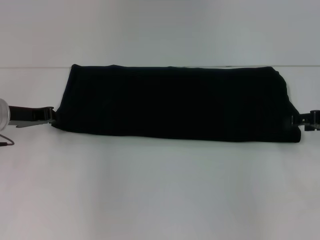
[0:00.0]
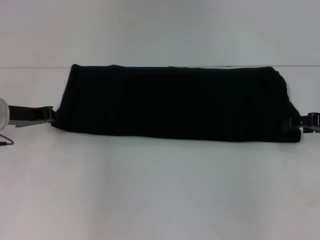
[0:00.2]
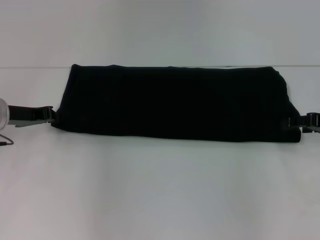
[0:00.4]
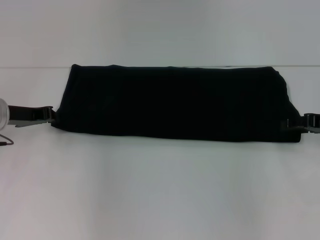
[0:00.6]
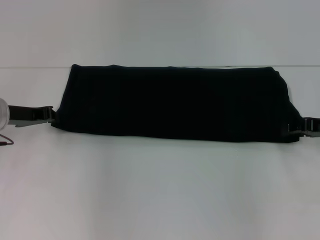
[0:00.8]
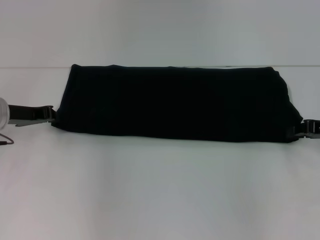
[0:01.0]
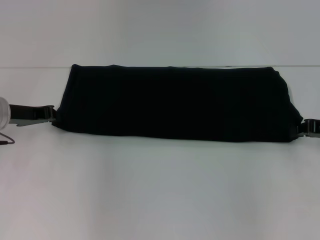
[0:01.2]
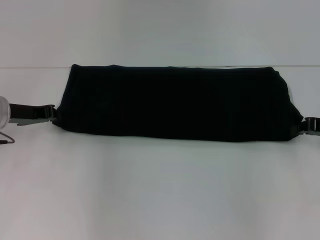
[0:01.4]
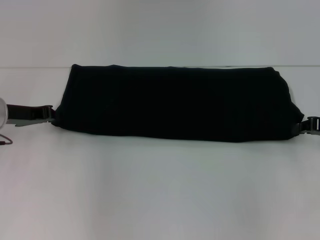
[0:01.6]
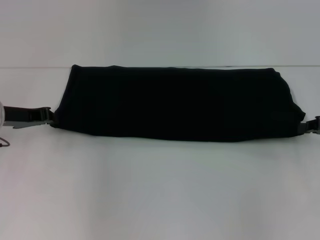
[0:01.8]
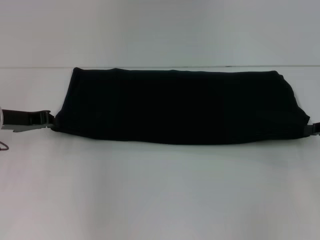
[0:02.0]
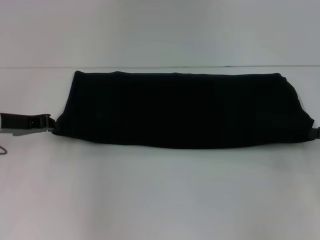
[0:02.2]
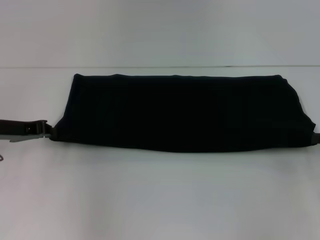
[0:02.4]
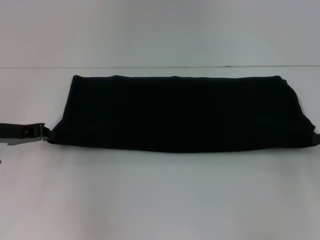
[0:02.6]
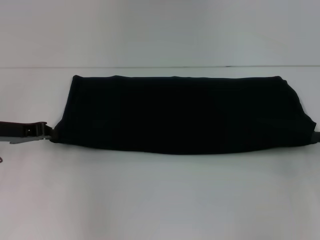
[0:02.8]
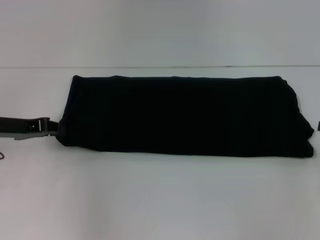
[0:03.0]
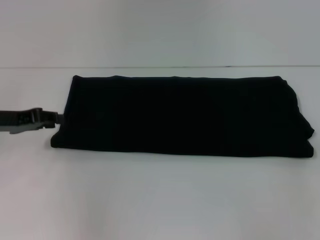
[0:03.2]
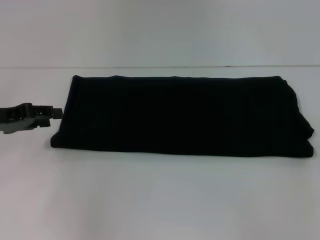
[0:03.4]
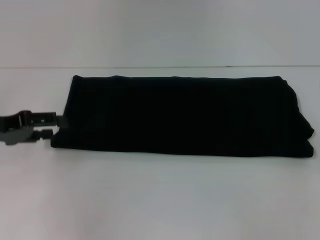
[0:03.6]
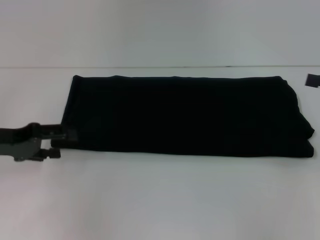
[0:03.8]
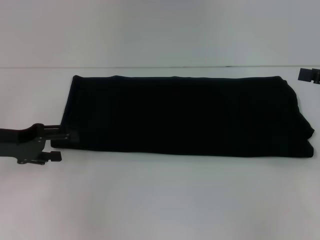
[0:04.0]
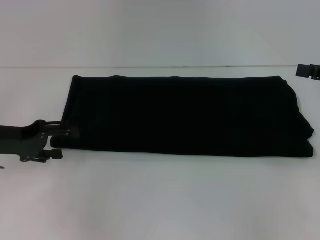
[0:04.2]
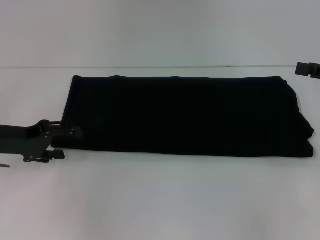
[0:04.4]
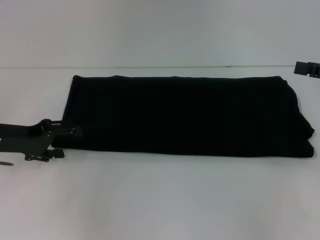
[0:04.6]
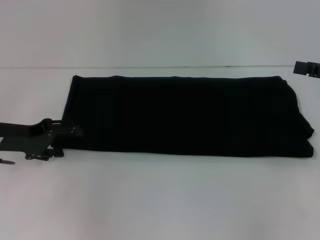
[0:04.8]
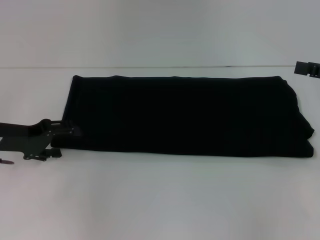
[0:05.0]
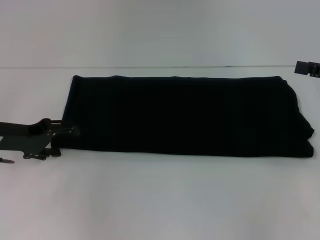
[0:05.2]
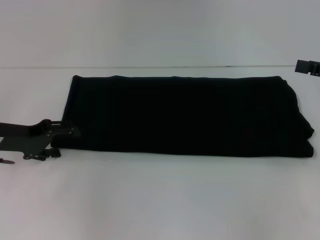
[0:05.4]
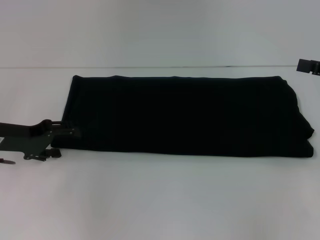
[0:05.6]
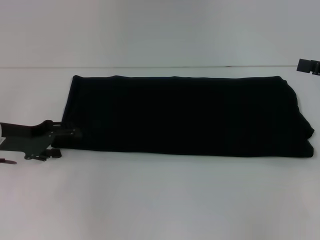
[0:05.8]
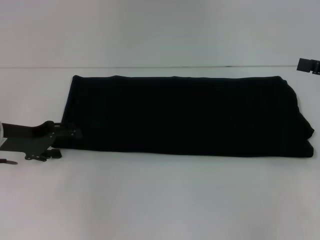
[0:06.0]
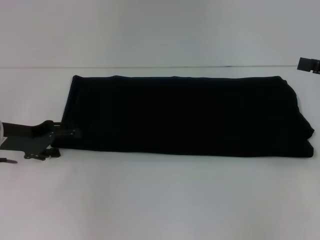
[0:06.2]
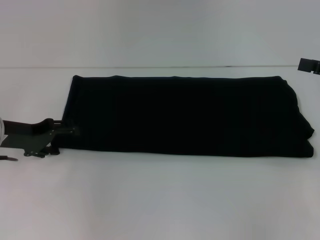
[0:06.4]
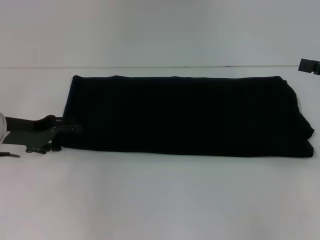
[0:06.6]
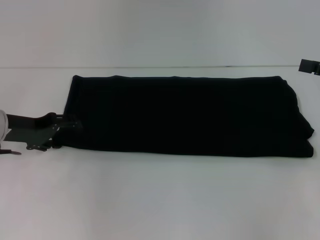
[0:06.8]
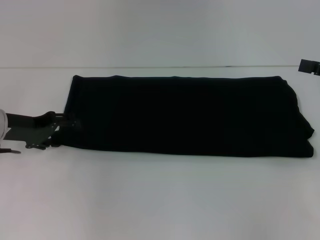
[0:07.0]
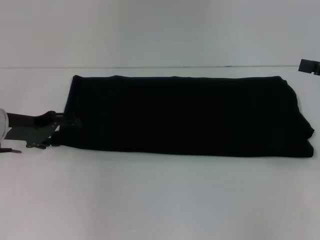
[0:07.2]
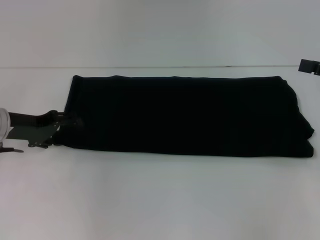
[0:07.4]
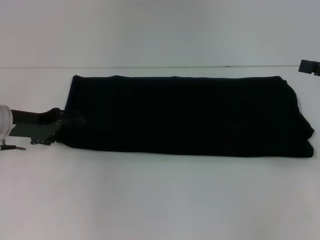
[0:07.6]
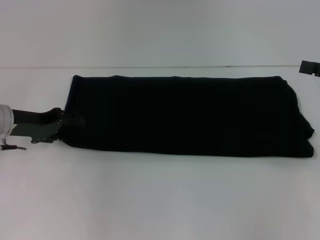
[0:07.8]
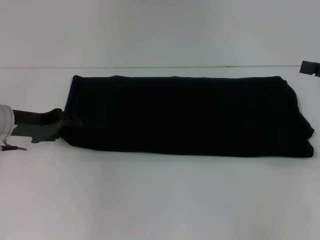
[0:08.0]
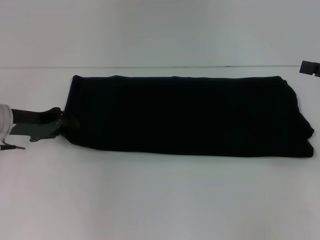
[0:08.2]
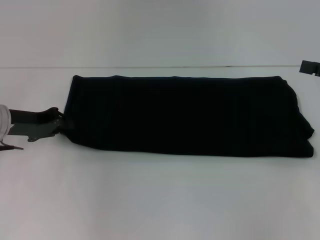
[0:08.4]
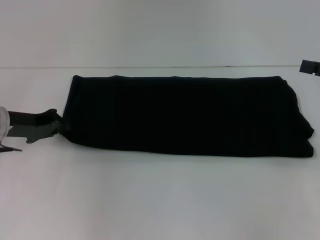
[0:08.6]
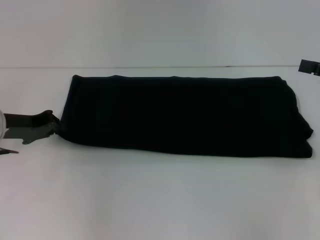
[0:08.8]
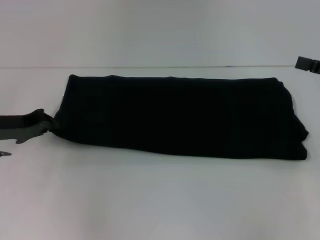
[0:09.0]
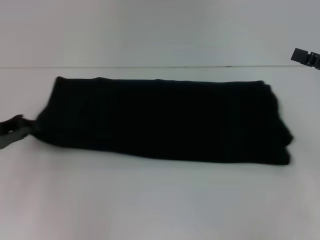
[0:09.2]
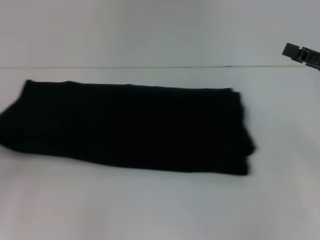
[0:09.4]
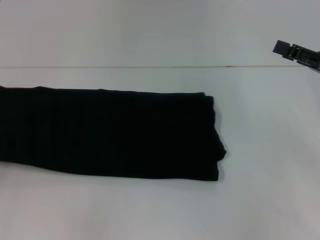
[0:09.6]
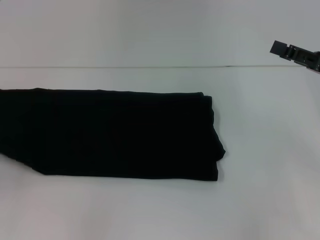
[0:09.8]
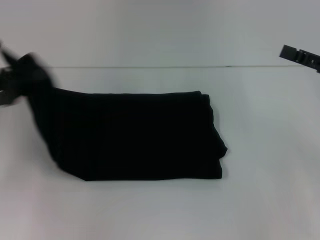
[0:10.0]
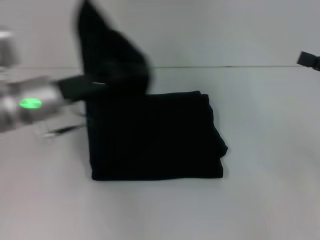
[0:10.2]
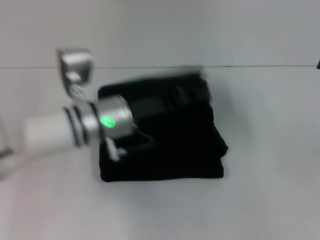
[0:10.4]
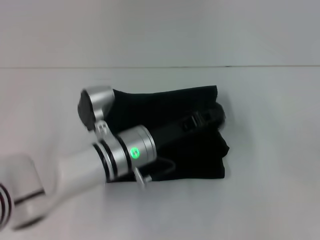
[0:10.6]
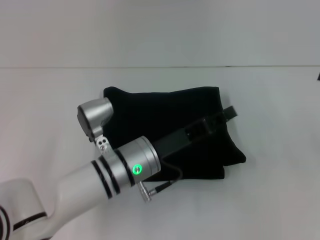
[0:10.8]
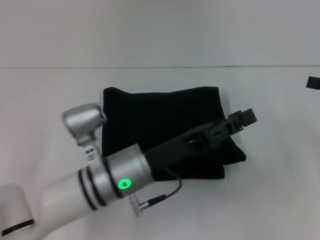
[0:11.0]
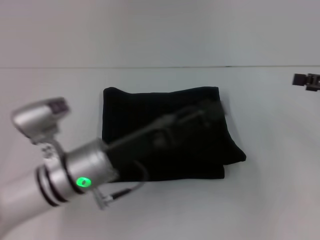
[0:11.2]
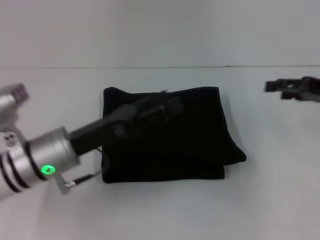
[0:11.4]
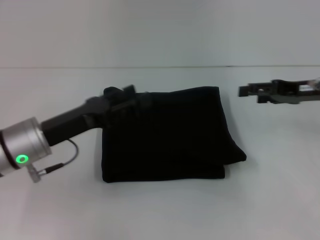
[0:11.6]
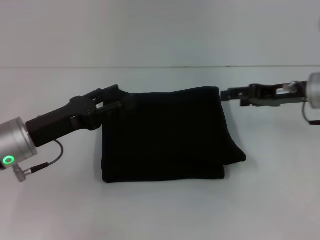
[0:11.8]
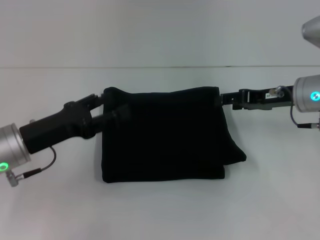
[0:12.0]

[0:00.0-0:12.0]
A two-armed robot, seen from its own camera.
Step, 0:00.0 to 0:11.0: Fold the clothes with your left hand.
0:00.0 to 0:01.6: The right gripper closes.
0:01.6 to 0:03.0: The right gripper shifts by some 5 cm.
0:03.0 to 0:04.4: The left gripper opens.
0:04.4 to 0:07.6: The grippers move only a little.
0:07.6 to 0:09.0: The left gripper closes up.
0:09.0 to 0:10.4: The left gripper goes about 20 cm to the right.
0:10.4 to 0:12.0: The left gripper shifts roughly 15 cm to the left and backward, and opens up. The right gripper shifts approximately 15 cm to the left and forward.

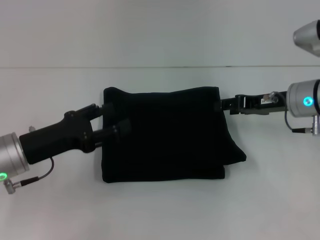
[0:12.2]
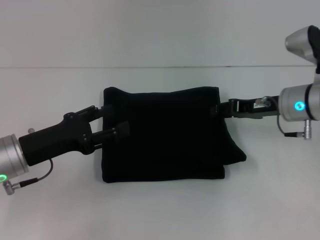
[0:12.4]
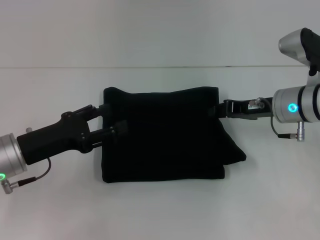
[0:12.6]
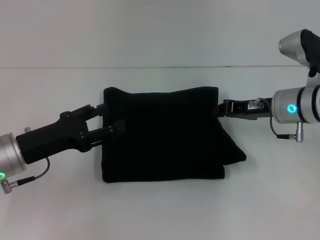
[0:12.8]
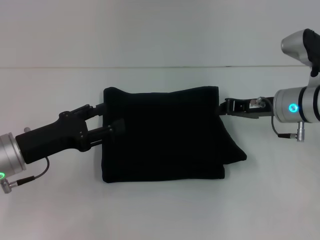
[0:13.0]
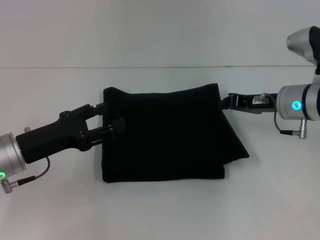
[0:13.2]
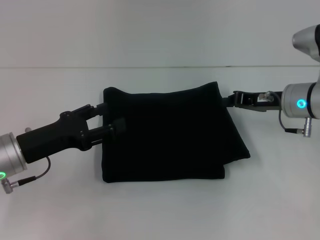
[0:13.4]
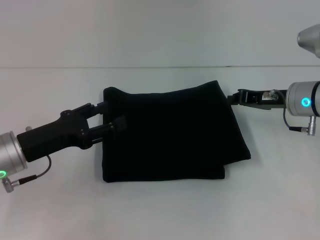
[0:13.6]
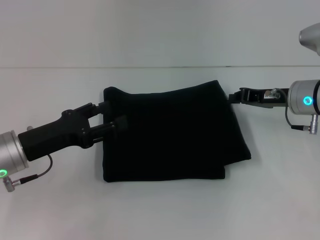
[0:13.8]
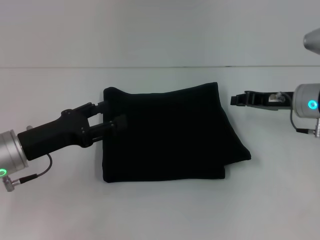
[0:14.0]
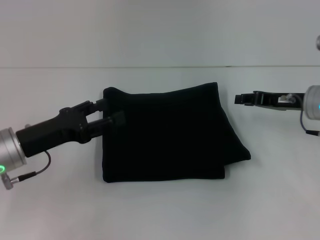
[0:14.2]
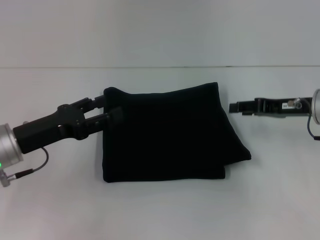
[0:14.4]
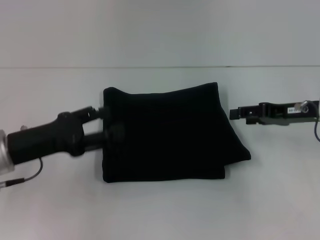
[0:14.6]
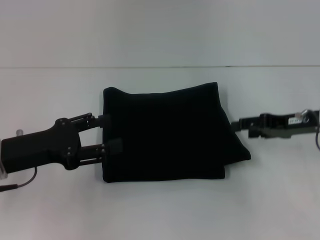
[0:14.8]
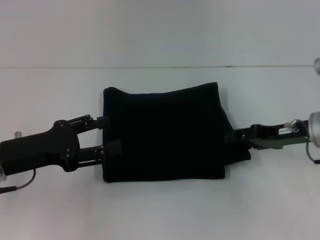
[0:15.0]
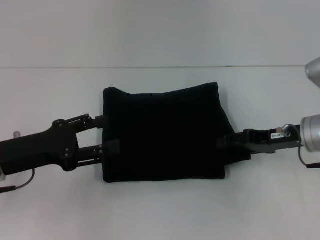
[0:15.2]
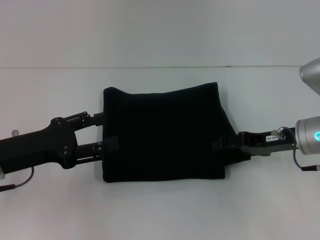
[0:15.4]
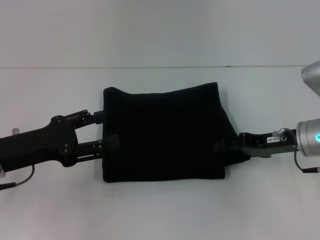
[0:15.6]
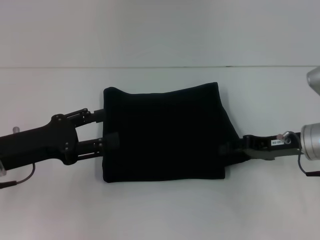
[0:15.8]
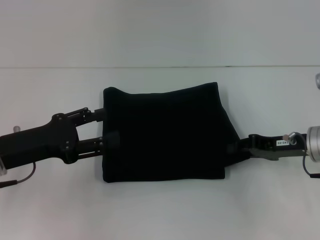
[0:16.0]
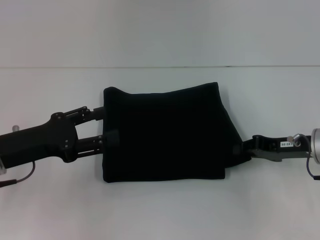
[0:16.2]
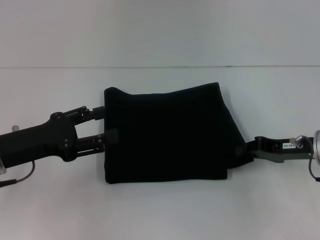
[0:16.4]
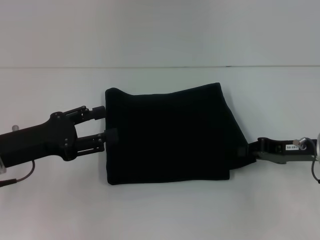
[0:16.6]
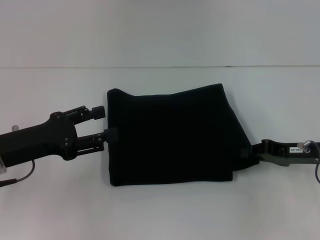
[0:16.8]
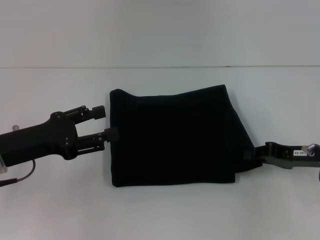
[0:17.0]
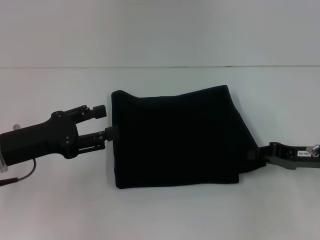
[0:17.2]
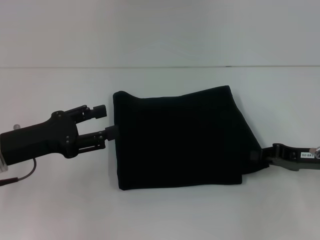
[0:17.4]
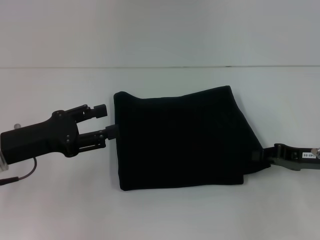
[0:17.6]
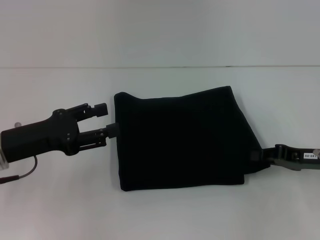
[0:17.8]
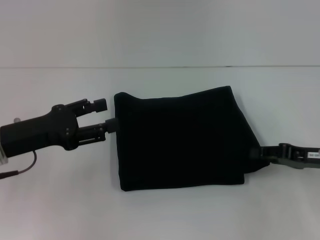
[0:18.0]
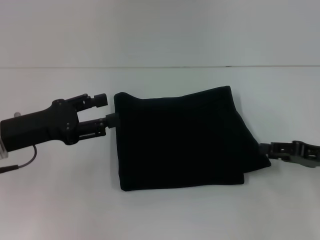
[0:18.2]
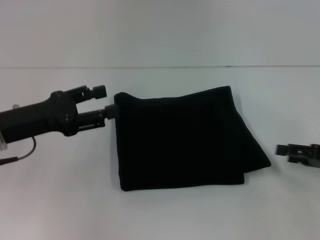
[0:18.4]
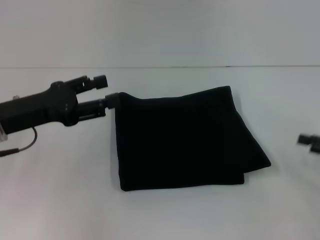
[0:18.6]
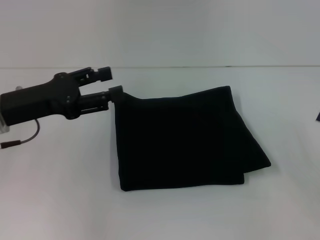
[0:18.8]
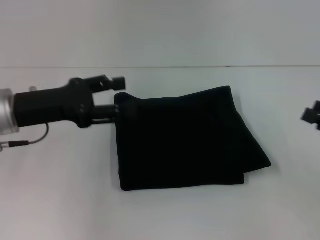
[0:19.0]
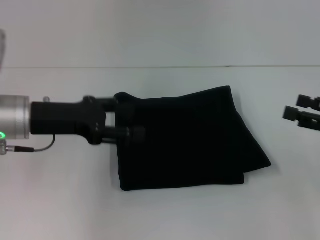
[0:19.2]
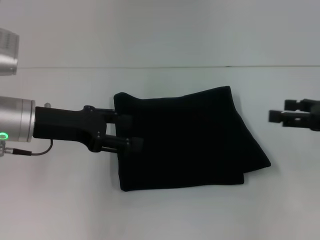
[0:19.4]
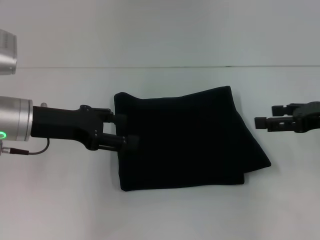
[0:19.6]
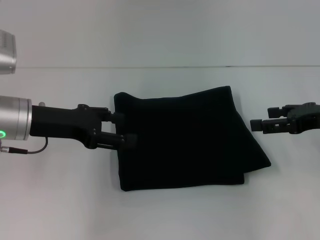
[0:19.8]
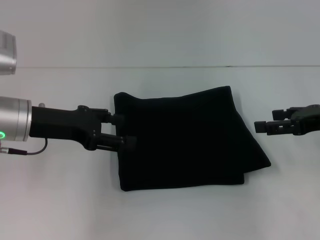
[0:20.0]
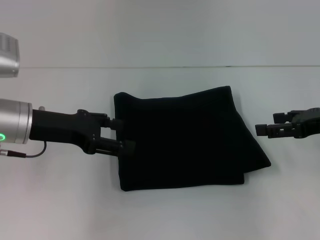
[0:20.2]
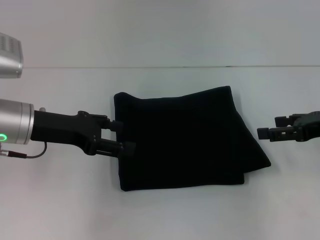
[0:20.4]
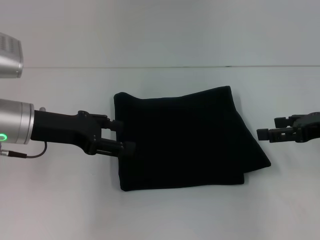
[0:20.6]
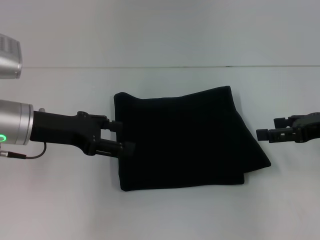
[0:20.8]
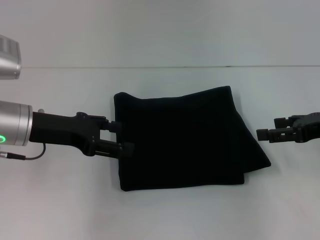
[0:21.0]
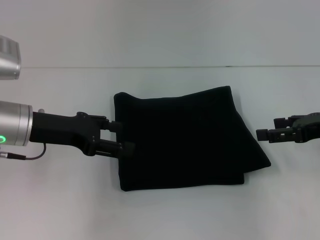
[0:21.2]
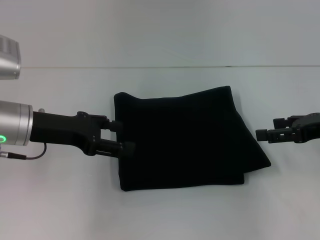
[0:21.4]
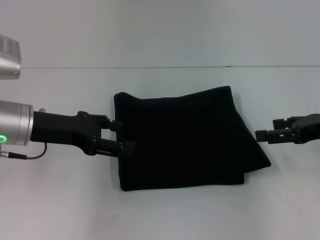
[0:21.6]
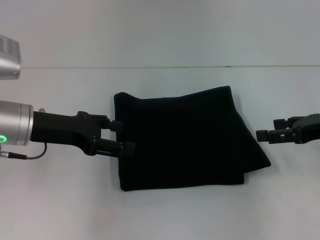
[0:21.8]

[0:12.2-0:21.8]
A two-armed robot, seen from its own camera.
0:12.2 to 0:13.8: The right gripper closes its fingers.
0:13.8 to 0:15.4: The right gripper shifts by roughly 5 cm, and opens up.
0:15.4 to 0:17.0: The right gripper moves about 5 cm, and closes up.
0:17.0 to 0:18.6: The right gripper is displaced to the right by approximately 10 cm, and opens its fingers.
0:18.6 to 0:20.2: The right gripper moves to the left, upward and forward, approximately 10 cm.
0:20.2 to 0:21.8: Both grippers stay put.

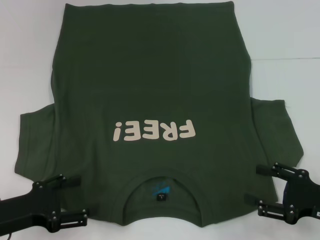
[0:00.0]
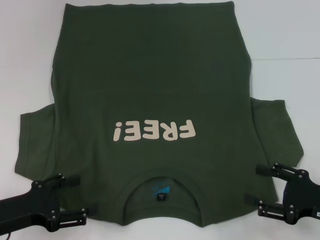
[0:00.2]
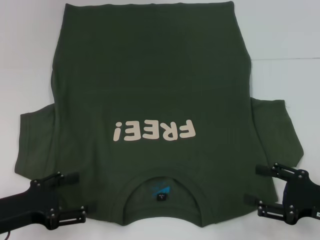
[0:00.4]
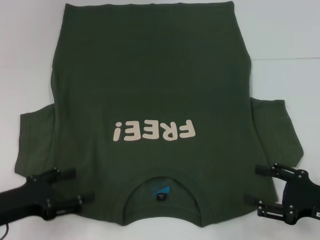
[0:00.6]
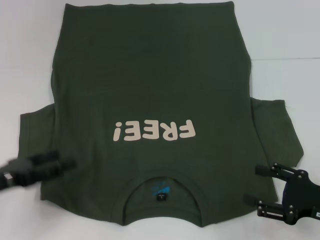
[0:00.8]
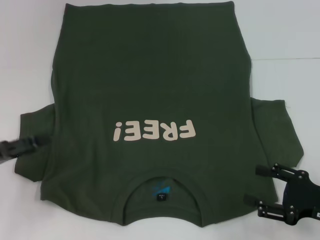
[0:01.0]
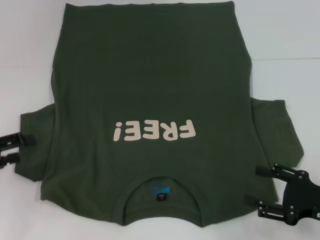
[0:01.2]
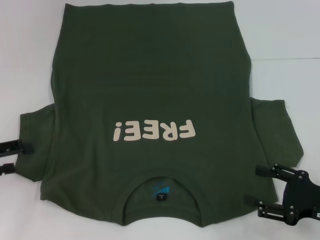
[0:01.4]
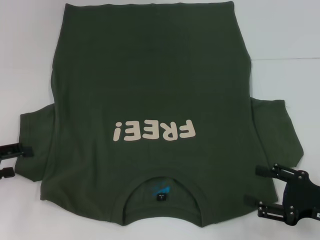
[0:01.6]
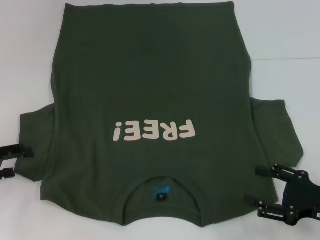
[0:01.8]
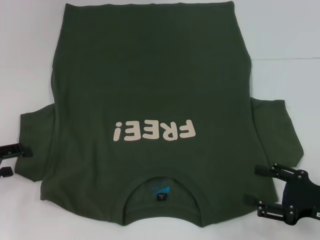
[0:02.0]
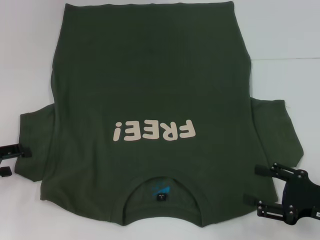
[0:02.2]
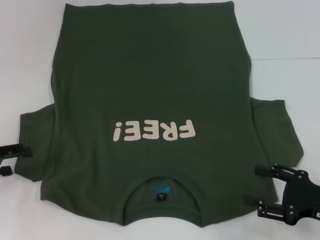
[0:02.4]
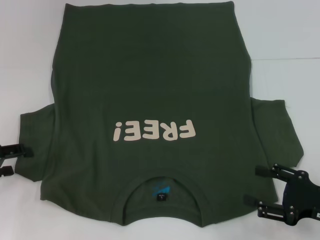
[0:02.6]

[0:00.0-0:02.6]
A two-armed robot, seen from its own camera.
0:00.0 to 0:01.2: The left gripper is displaced to the left, forward and upward by roughly 10 cm.
